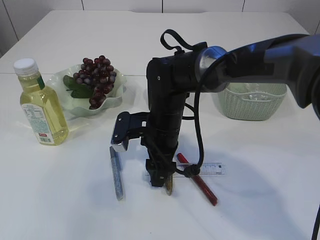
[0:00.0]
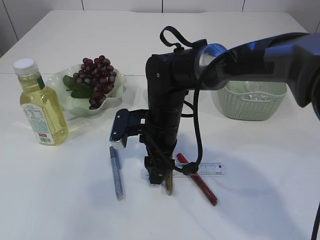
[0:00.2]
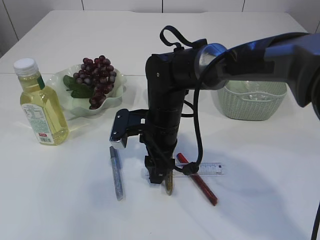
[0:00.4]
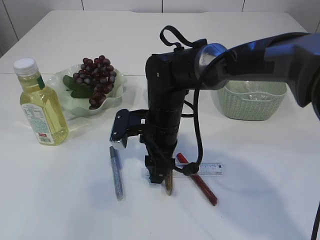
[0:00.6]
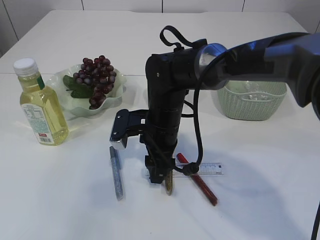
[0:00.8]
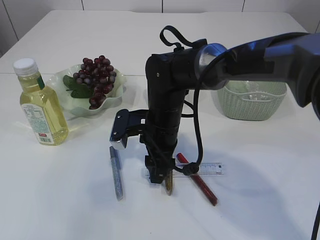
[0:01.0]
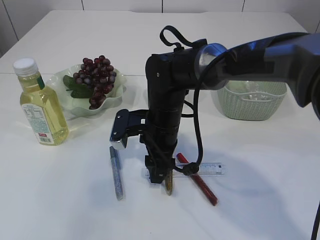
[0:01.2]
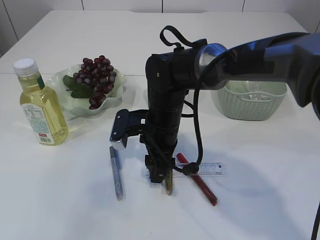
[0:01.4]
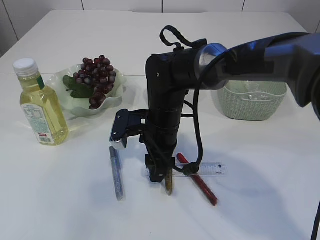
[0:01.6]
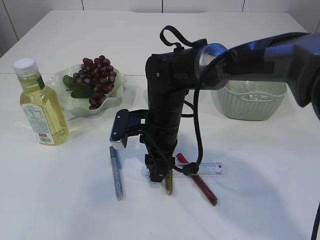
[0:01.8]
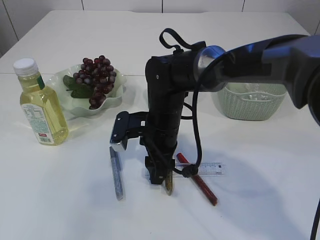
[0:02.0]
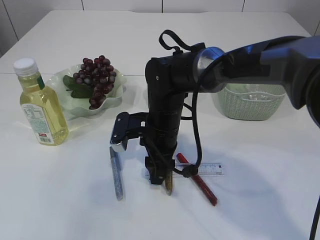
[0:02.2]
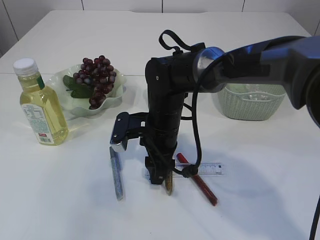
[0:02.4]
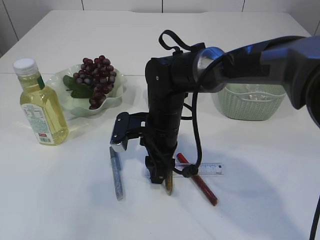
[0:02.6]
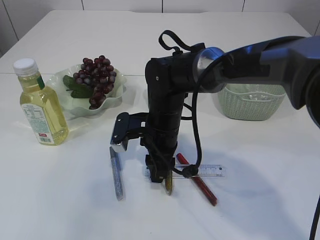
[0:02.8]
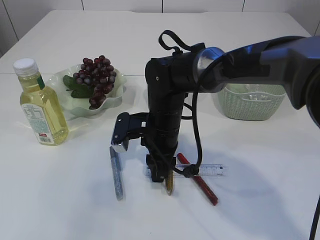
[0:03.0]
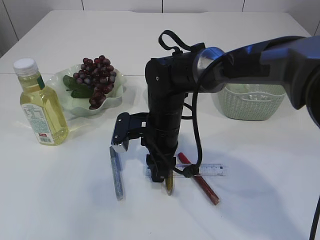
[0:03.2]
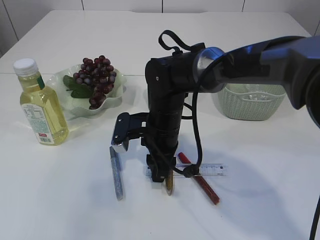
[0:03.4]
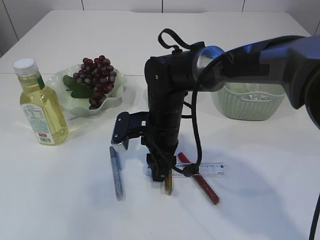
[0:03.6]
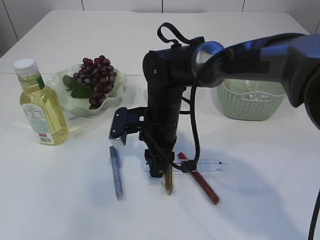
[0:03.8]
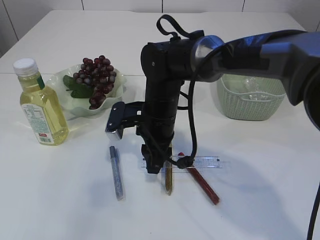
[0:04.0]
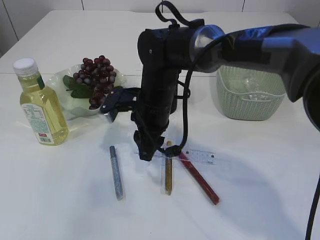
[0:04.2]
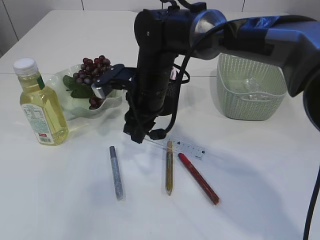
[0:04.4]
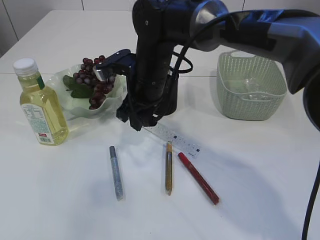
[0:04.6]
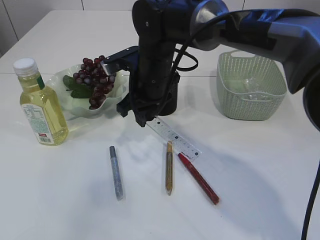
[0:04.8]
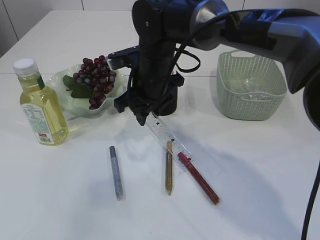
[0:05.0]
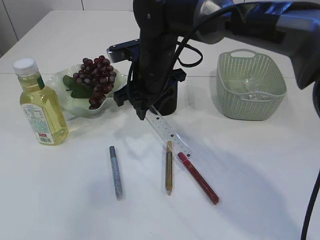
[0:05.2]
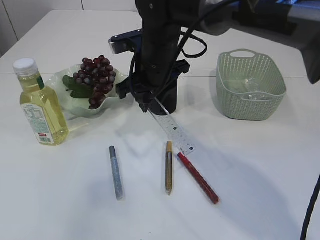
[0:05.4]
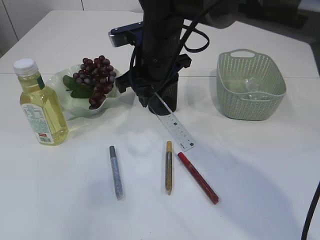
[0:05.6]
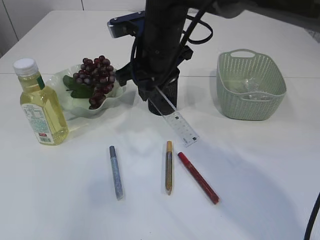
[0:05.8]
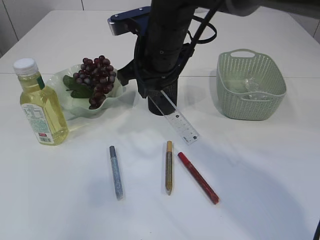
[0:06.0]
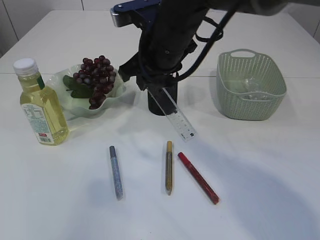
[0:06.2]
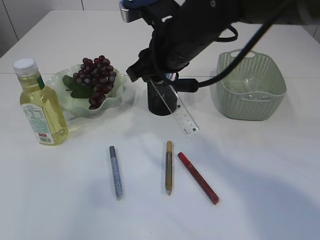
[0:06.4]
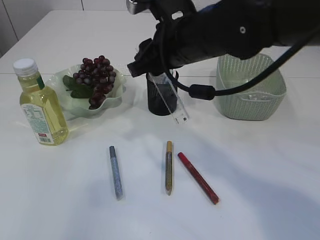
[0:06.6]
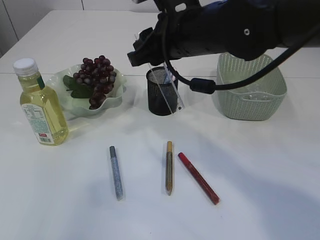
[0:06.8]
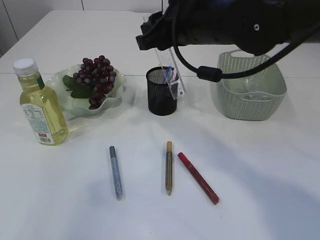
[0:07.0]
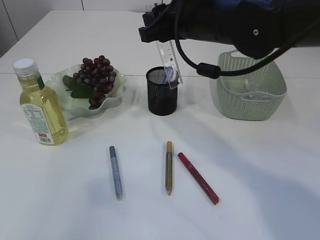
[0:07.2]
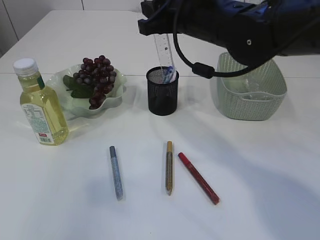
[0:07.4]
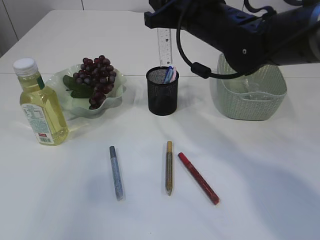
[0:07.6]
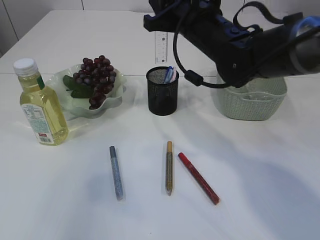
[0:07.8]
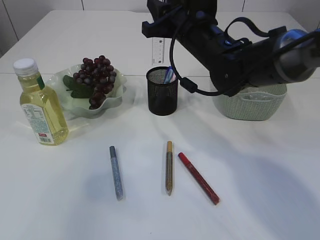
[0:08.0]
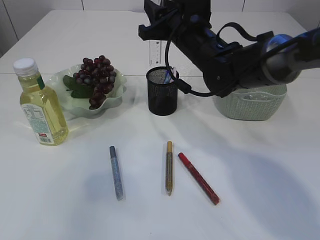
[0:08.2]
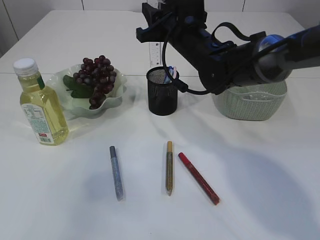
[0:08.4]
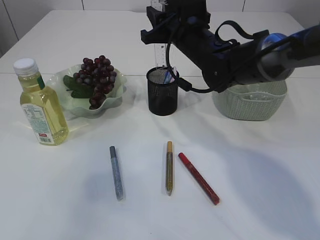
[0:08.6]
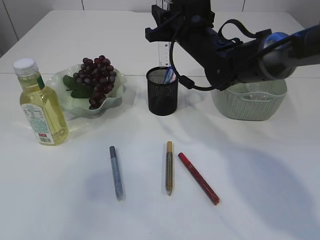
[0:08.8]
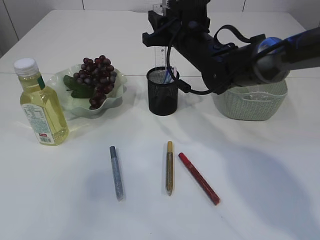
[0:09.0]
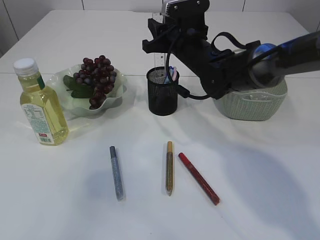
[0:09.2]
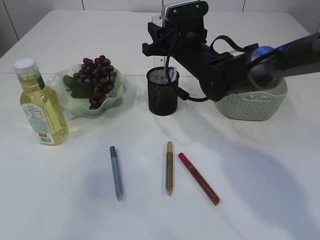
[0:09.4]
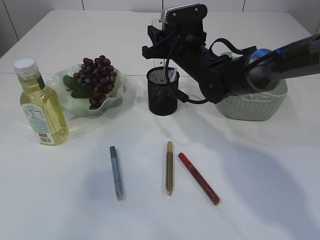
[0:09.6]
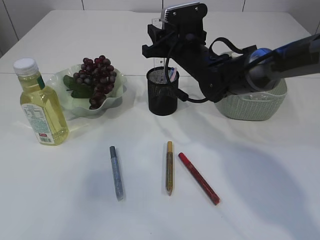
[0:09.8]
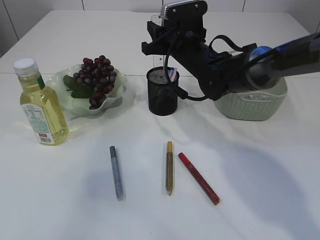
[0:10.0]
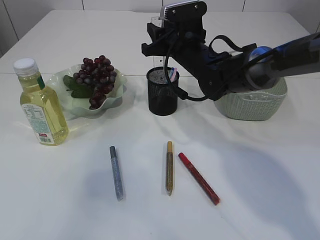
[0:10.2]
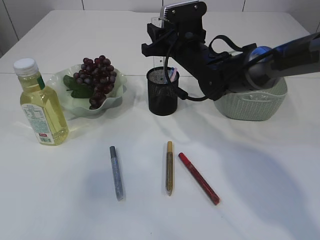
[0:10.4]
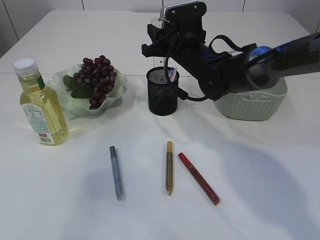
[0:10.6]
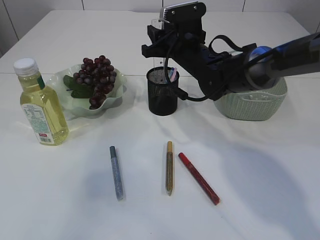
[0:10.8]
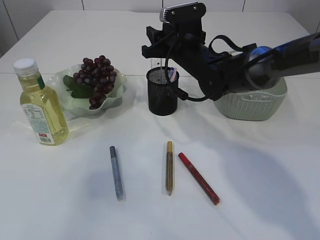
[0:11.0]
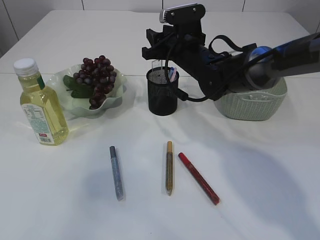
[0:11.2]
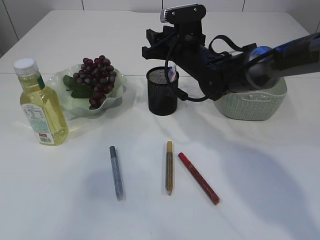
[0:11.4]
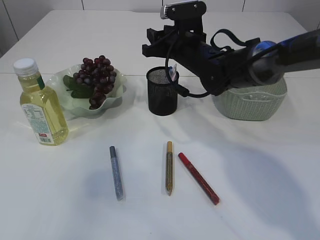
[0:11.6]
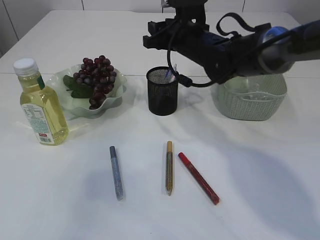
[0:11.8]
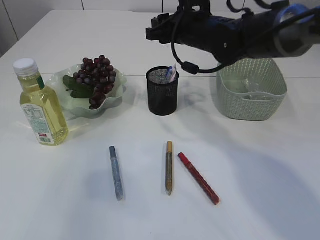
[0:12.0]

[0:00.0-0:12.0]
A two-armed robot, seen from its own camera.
Step, 0:00.0 to 0:04.8: pick up the ruler.
0:00.0 to 0:03.0: Both grippers stay put.
0:03.0 to 0:04.4: The right gripper heads upward, covering approximately 5 cm.
0:04.4 to 0:06.0: The right gripper heads upward, covering approximately 10 cm.
0:06.0 to 0:07.6: The right gripper goes roughly 5 cm to the right.
0:07.6 to 0:09.0: The right gripper shifts some 10 cm downward and forward.
0:09.0 to 0:10.4: There are only small adjustments of the grippers.
0:10.4 to 0:12.0: The right gripper ends up approximately 5 cm from where it was.

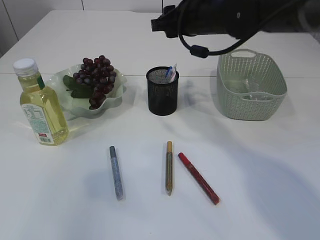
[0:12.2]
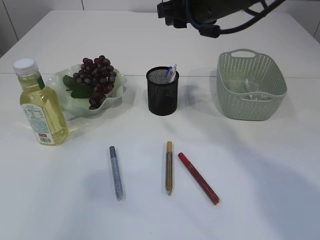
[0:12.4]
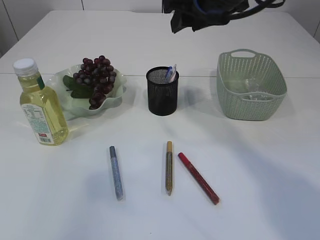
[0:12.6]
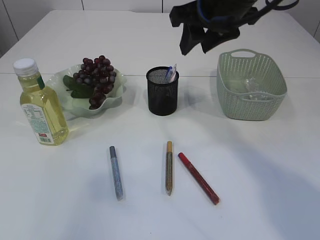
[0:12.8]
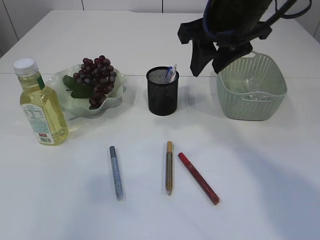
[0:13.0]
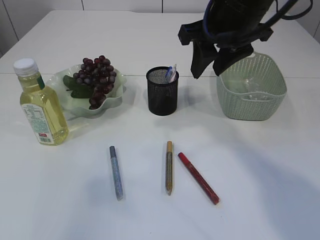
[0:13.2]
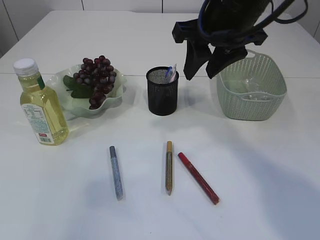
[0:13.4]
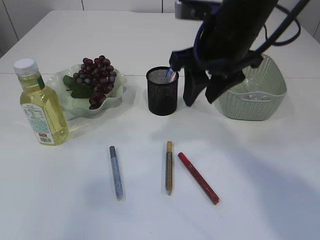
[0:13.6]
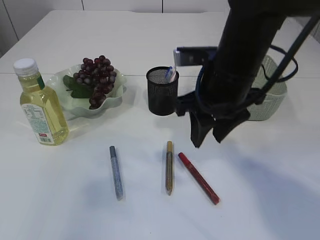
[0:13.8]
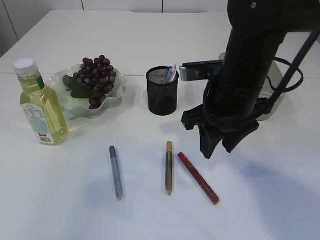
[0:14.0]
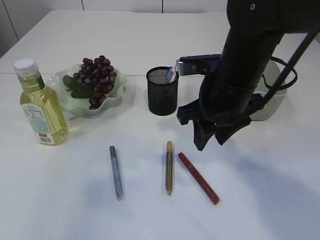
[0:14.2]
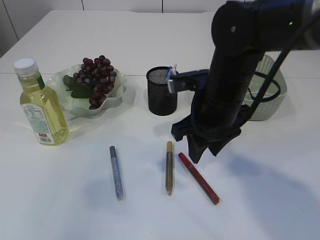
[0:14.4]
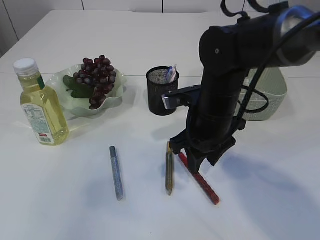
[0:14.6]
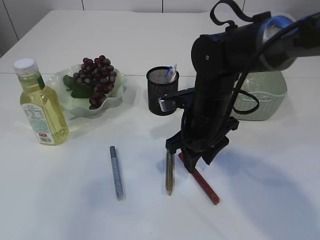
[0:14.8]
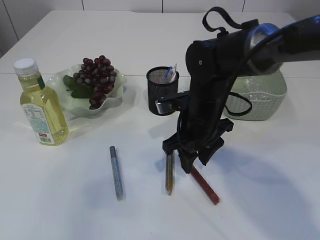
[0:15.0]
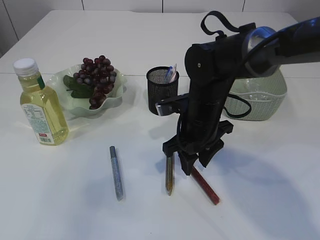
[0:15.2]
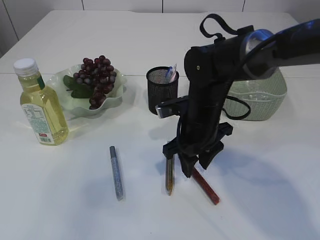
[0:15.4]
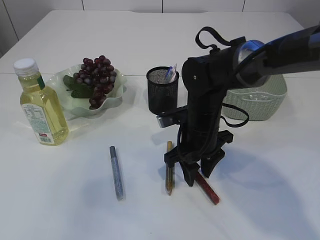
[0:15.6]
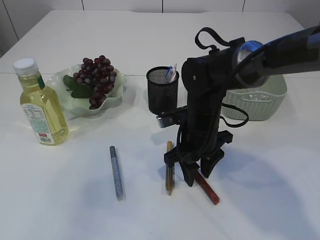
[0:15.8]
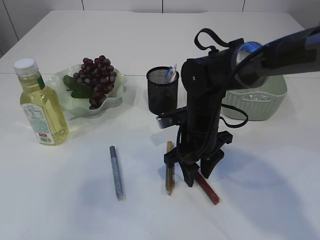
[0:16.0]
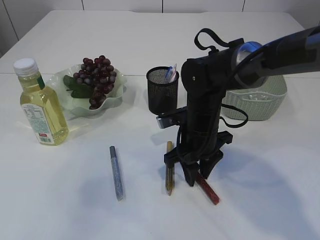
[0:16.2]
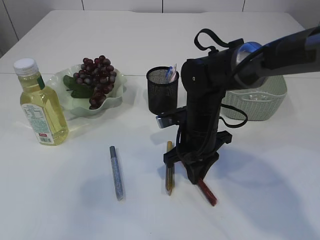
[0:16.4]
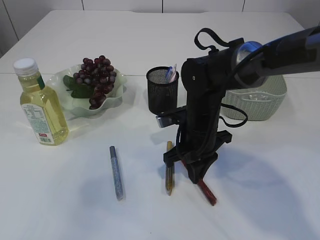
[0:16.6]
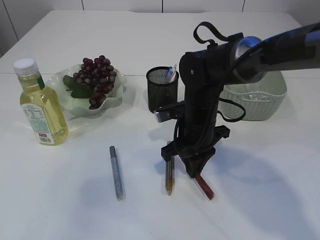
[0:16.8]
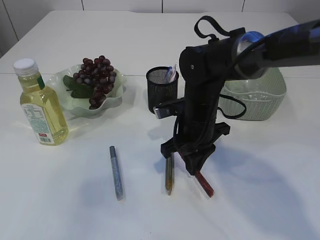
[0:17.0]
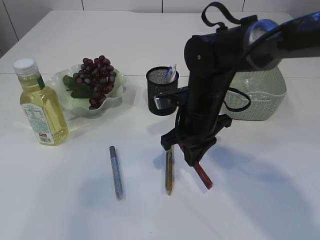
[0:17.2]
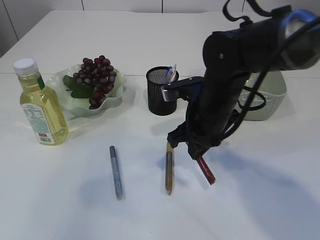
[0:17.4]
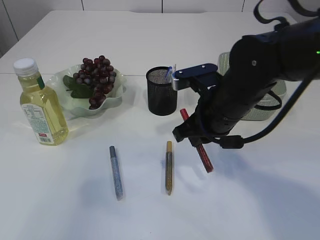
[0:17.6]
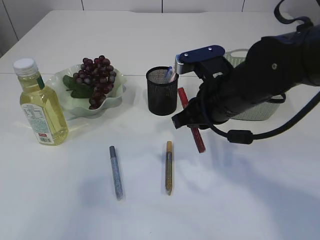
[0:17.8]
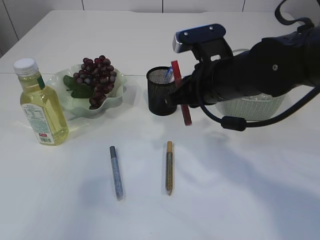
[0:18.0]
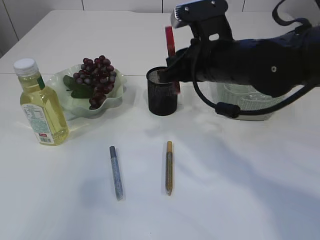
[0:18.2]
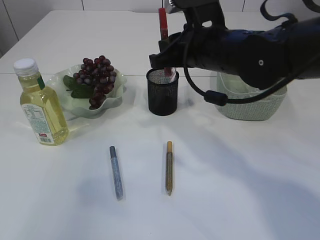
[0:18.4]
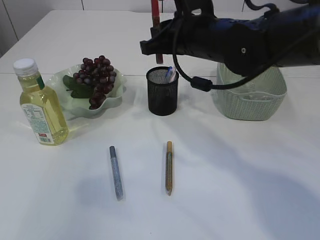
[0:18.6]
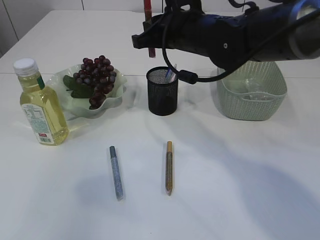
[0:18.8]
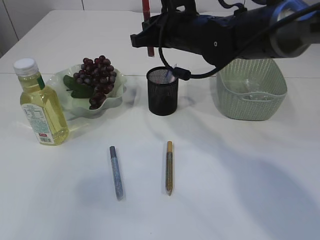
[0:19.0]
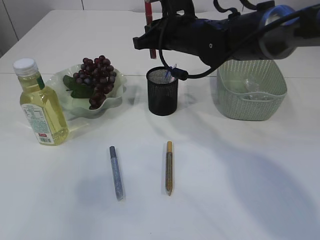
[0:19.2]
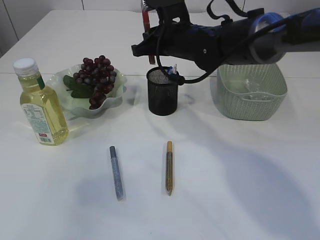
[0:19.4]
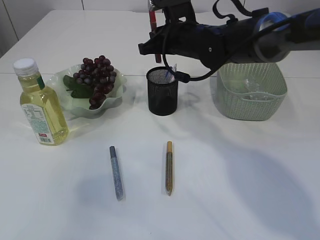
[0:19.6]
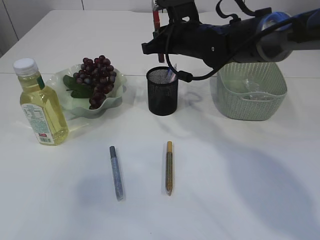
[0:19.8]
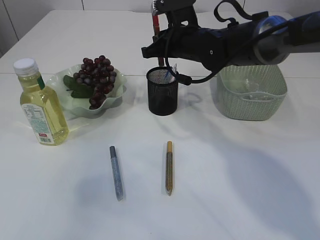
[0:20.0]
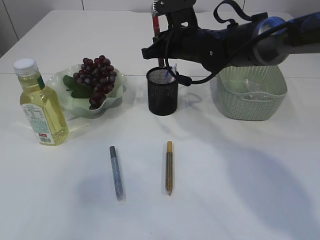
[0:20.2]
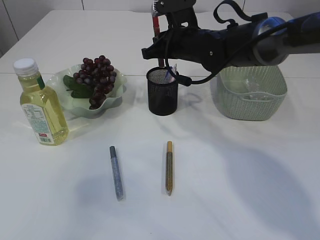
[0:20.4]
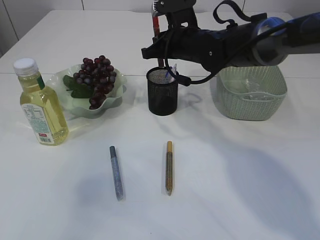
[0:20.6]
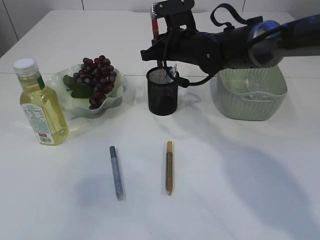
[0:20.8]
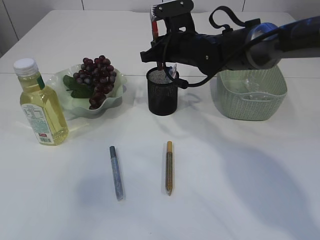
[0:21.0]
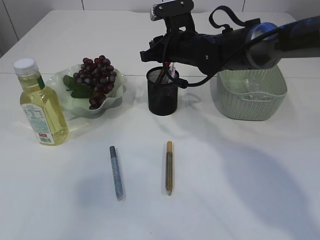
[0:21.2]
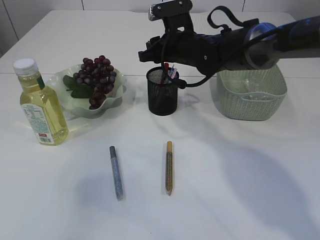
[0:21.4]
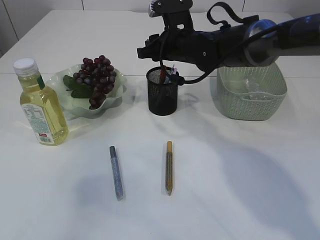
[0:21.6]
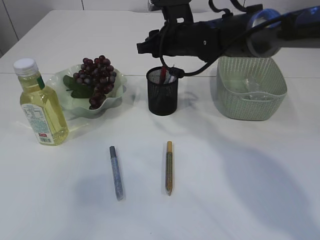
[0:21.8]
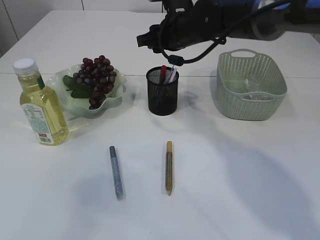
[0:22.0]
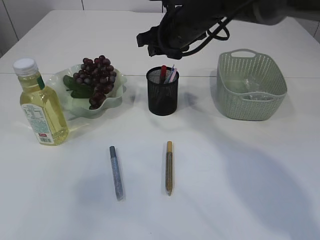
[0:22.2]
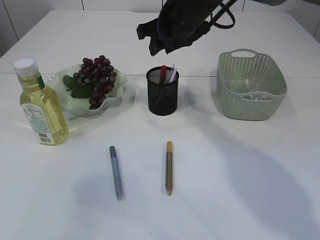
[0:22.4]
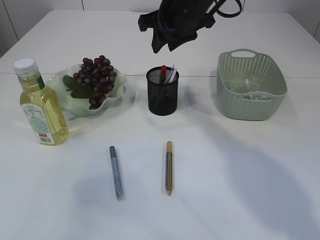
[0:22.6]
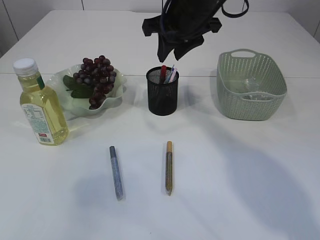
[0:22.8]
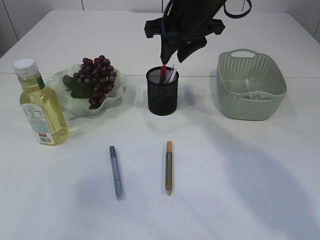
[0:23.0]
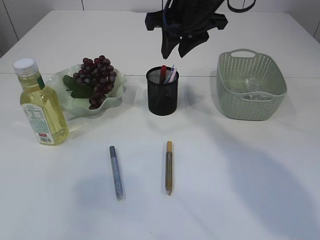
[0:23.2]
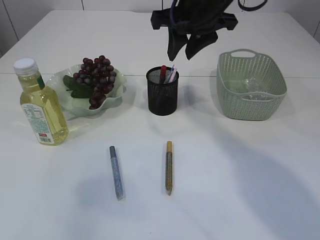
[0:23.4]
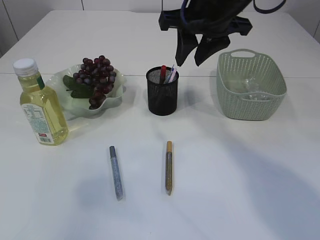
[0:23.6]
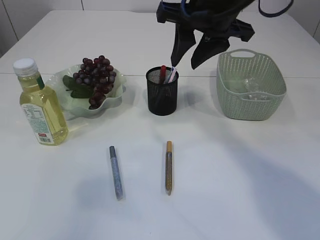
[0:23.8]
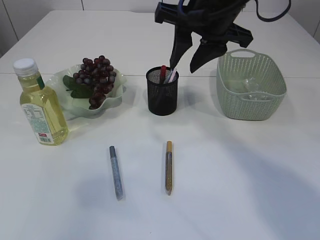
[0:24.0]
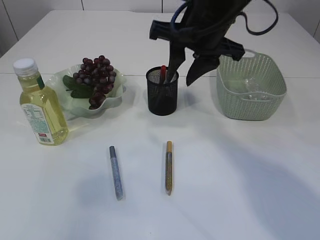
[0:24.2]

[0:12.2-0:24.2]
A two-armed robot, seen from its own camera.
Step, 0:12.2 to 0:17.2: pick up the red glue.
Step, 0:17.4 to 0:23.0: place the red glue into the pen holder.
0:12.2 to 0:13.8: The right gripper is displaced backward by about 10 cm.
0:13.8 to 0:15.2: The right gripper is displaced downward by approximately 10 cm.
0:15.2 to 0:16.6: The right gripper closes its fingers.
0:16.6 to 0:18.2: The right gripper is displaced upward by approximately 10 cm.
0:18.2 to 0:19.8: The right gripper goes roughly 10 cm forward.
0:19.8 to 0:21.2: There are only small adjustments of the grippers.
0:21.2 to 0:22.6: The right gripper shifts some 10 cm upward.
0:22.6 to 0:24.2: The right gripper moves backward, some 5 cm.
